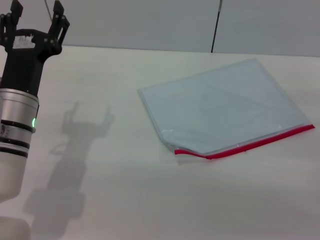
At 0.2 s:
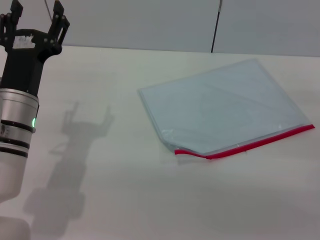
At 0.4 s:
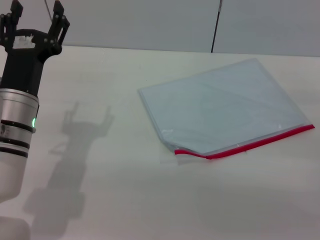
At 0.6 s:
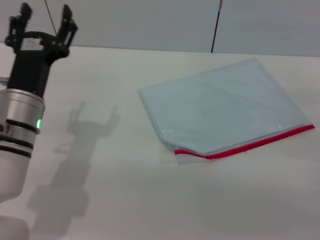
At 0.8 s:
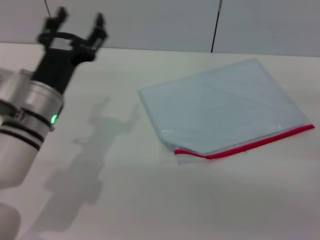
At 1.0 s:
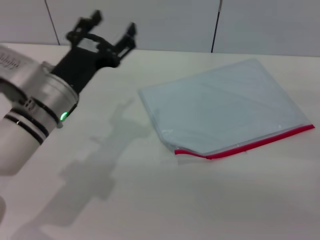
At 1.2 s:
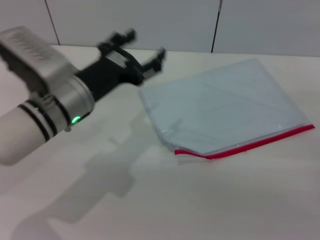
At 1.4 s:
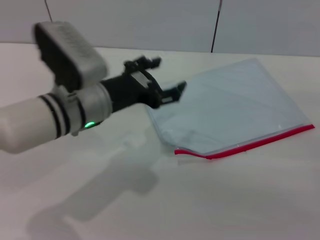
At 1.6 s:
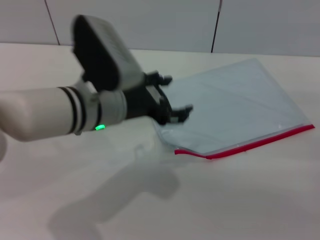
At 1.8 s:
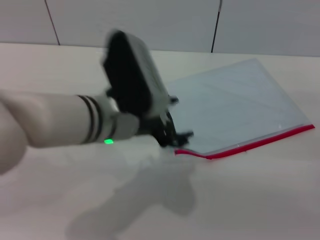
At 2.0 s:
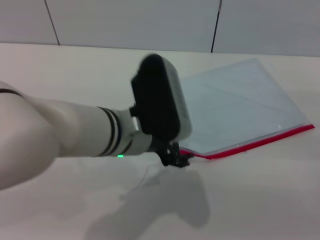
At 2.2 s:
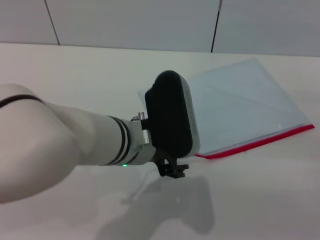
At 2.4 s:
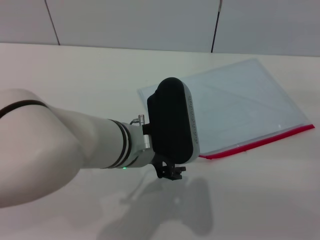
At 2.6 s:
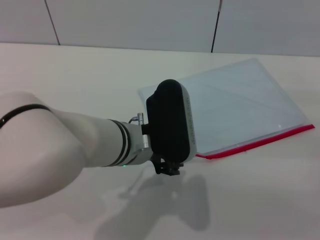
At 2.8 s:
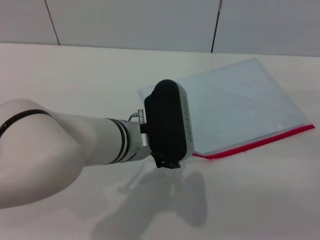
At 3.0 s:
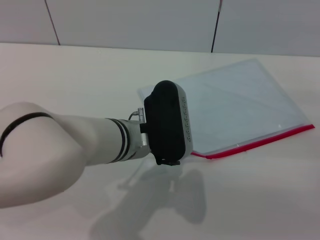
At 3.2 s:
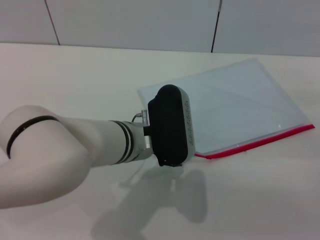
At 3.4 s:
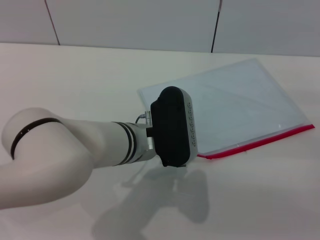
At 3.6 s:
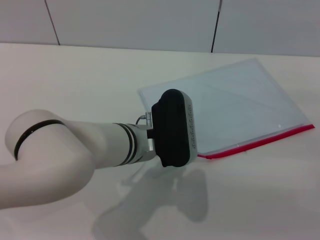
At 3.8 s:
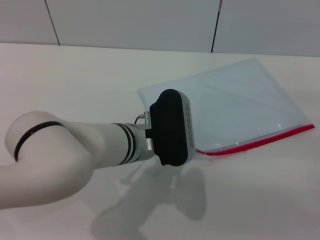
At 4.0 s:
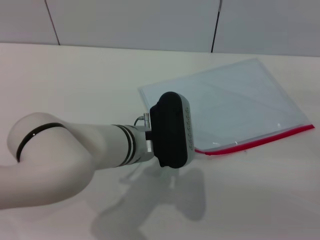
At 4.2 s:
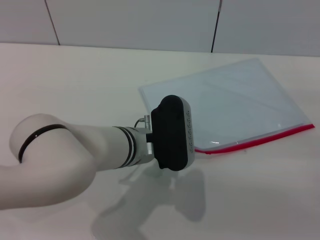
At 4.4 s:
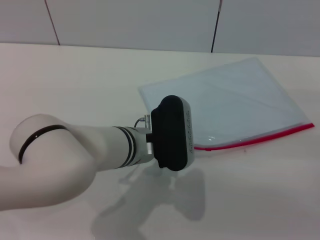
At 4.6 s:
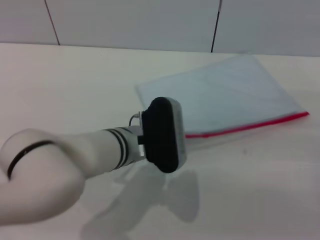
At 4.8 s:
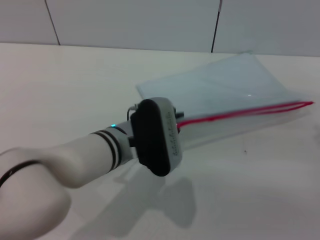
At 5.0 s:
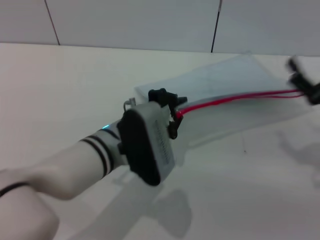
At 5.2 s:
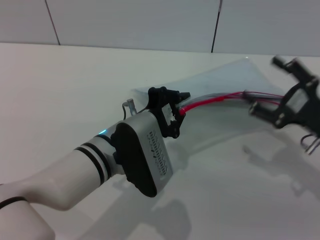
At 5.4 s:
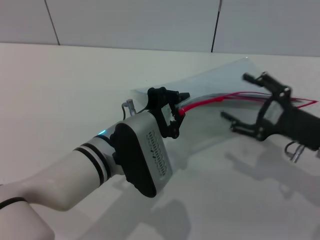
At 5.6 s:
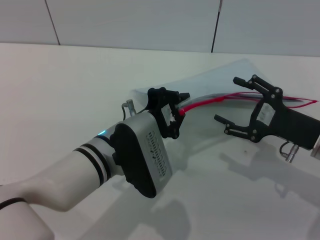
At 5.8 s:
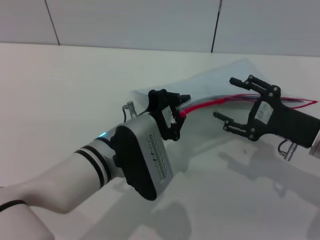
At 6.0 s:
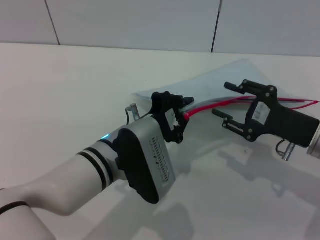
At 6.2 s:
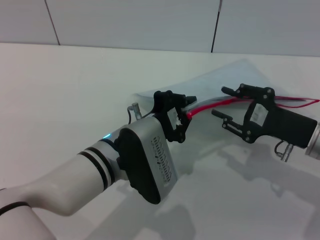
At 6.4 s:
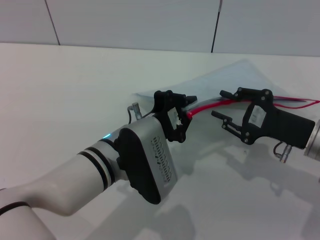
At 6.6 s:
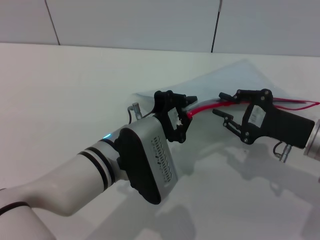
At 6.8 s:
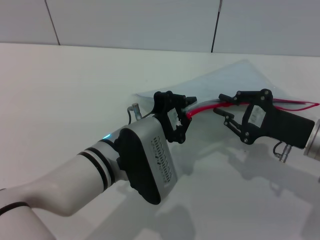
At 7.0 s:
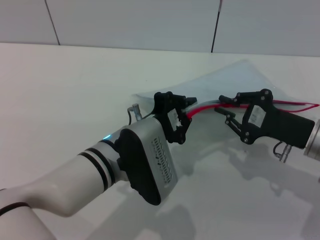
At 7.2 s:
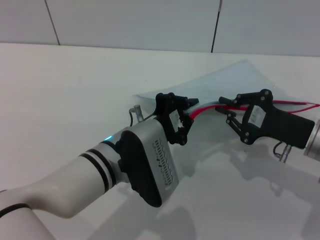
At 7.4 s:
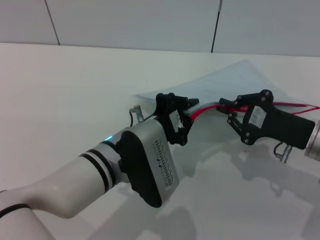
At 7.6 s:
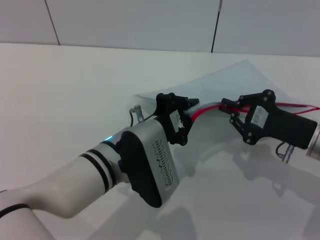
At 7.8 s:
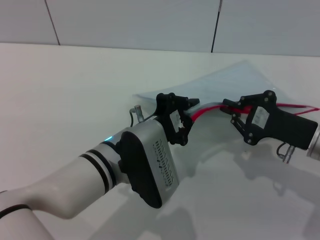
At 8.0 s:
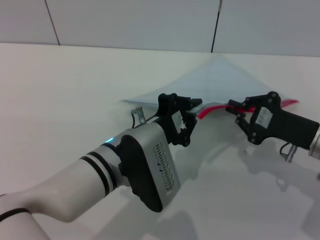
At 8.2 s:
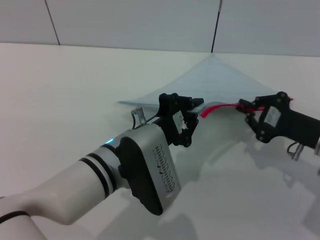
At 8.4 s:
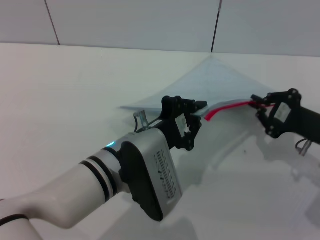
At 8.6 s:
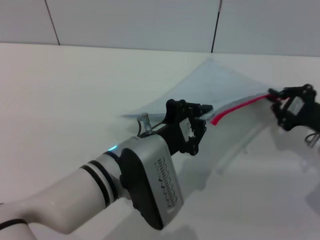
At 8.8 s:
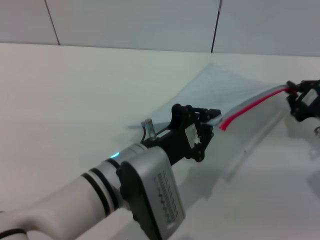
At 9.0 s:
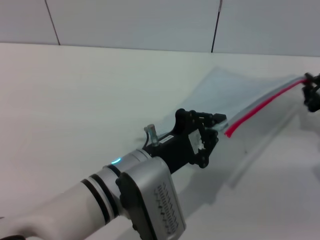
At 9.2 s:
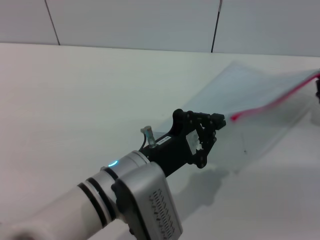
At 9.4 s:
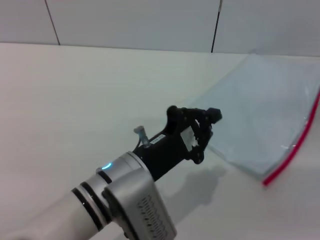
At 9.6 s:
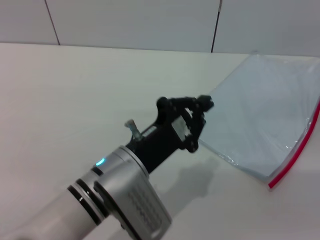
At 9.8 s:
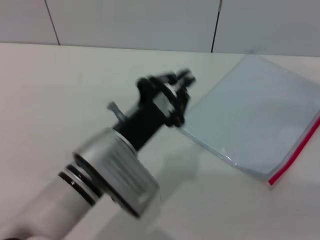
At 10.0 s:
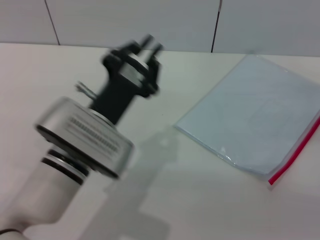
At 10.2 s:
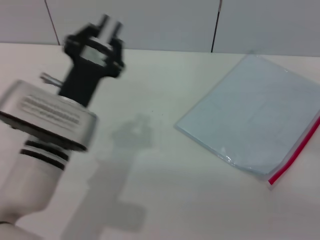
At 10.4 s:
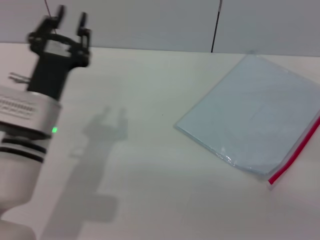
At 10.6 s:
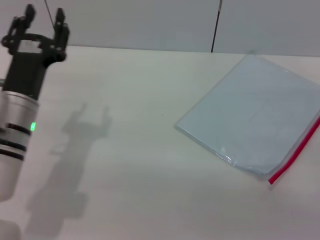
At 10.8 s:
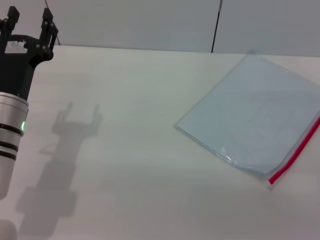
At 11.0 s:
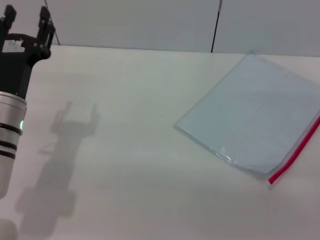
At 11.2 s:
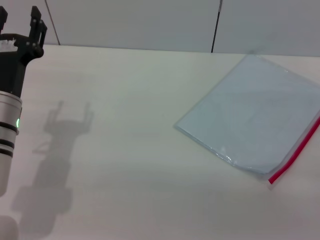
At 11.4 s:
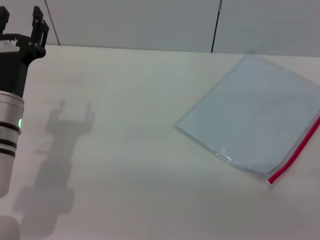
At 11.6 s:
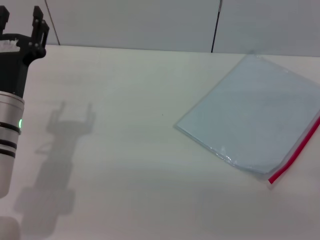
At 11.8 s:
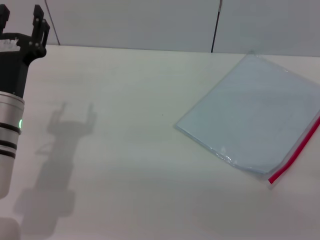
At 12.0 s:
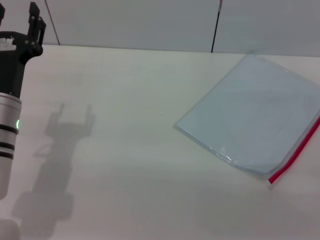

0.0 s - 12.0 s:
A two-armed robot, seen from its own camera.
Step, 0.0 s - 5.0 s: Pick up the transparent plastic bag with the left gripper.
Step, 5.2 s - 9.6 s: Pulling up the zipper on the transparent plastic bag with the right gripper to close it.
Step, 9.8 s - 10.8 s: Place the transparent plastic bag.
0.0 s - 1.6 s: The left gripper goes some 10 cm to the right and upward.
1.6 s - 3.0 s: The left gripper changes place by some 5 cm.
3.0 s - 4.4 s: The left gripper closes its fingers.
4.4 s - 6.0 s: The right gripper heads to the left, covering roughly 10 cm.
6.0 s - 7.6 s: The right gripper closes.
7.6 s - 9.0 s: The right gripper heads to the right, covering roughly 5 cm.
9.0 s - 10.4 s: The right gripper travels backward by about 10 cm, and opens its fingers; the left gripper goes some 10 cm to the left and forward.
10.4 s - 12.0 s: The left gripper goes approximately 5 cm to the left, and opens its fingers.

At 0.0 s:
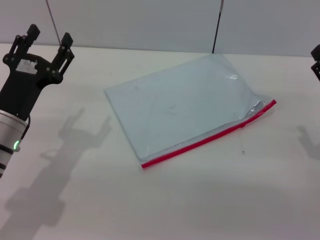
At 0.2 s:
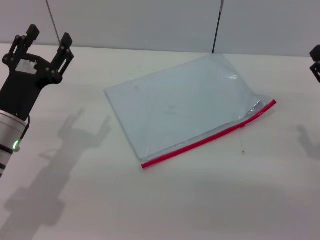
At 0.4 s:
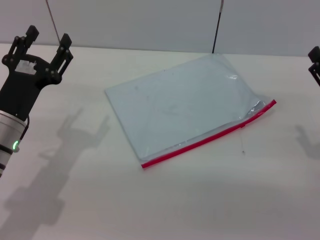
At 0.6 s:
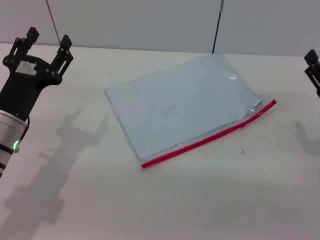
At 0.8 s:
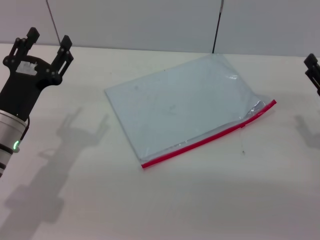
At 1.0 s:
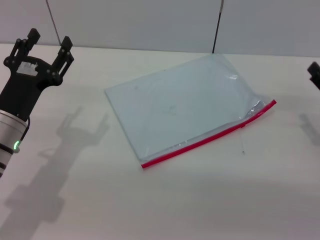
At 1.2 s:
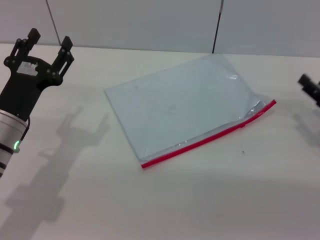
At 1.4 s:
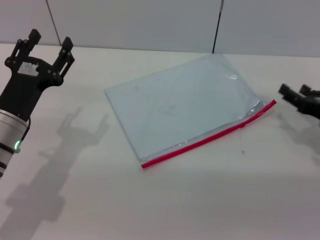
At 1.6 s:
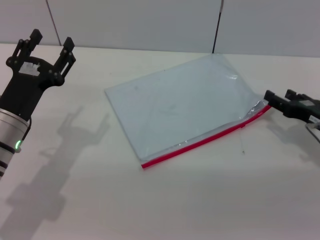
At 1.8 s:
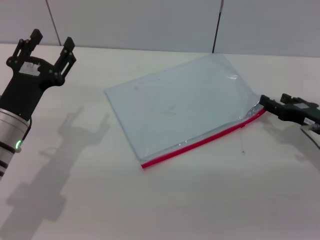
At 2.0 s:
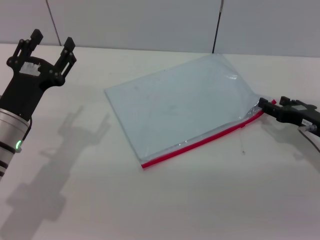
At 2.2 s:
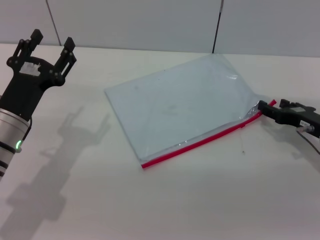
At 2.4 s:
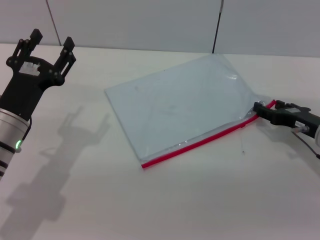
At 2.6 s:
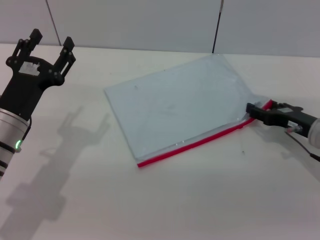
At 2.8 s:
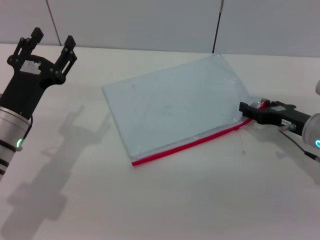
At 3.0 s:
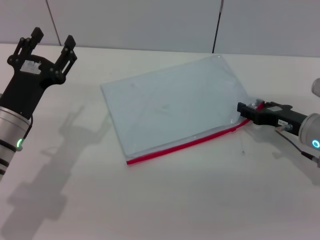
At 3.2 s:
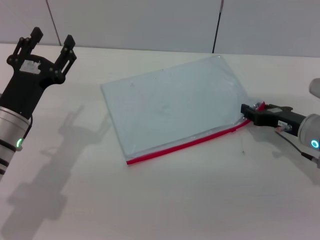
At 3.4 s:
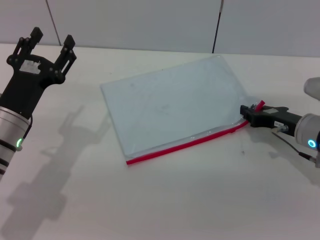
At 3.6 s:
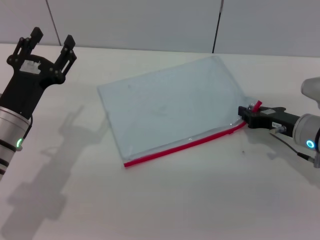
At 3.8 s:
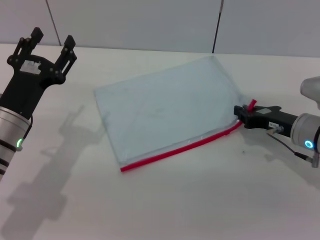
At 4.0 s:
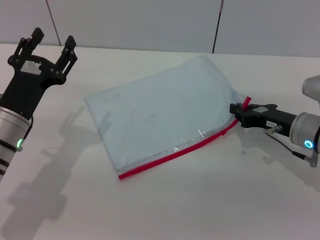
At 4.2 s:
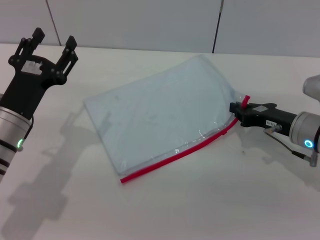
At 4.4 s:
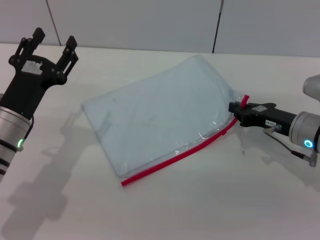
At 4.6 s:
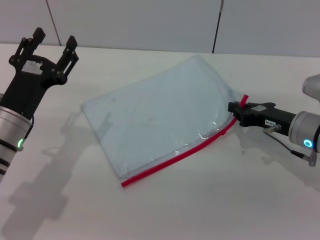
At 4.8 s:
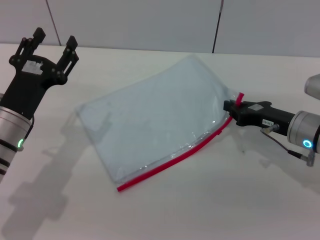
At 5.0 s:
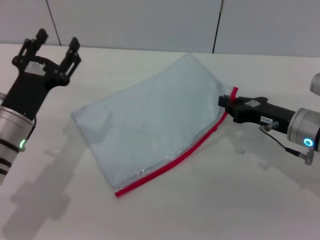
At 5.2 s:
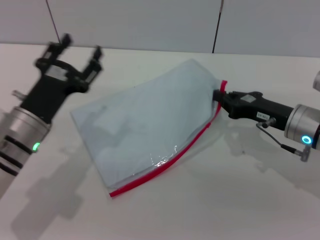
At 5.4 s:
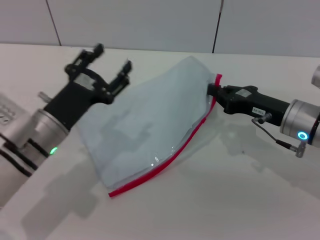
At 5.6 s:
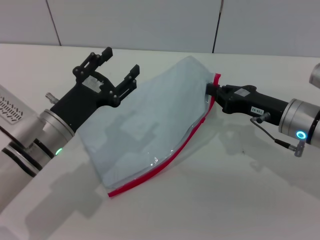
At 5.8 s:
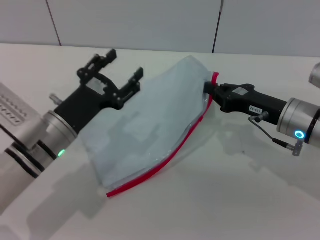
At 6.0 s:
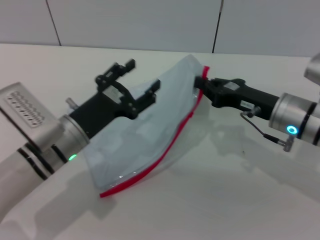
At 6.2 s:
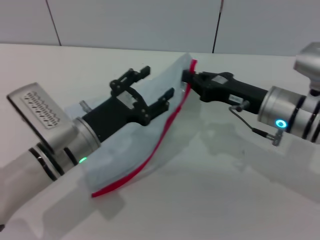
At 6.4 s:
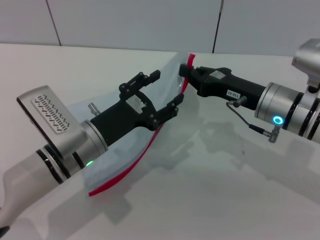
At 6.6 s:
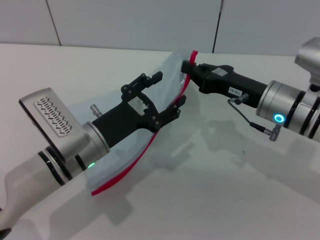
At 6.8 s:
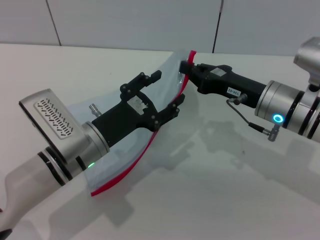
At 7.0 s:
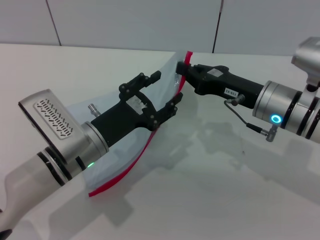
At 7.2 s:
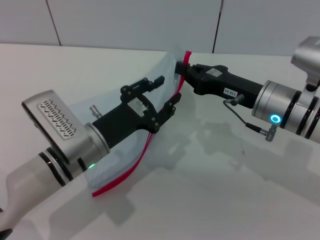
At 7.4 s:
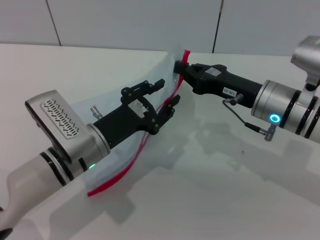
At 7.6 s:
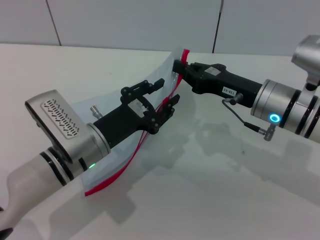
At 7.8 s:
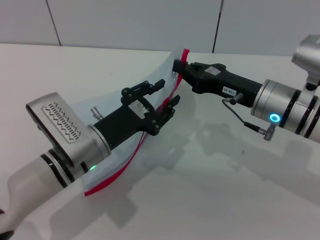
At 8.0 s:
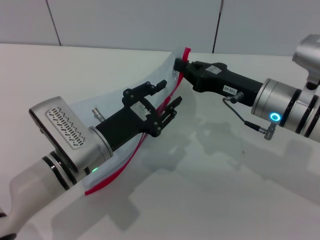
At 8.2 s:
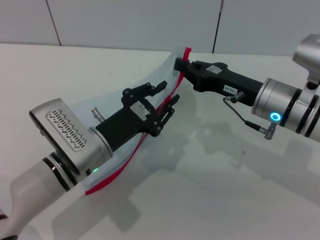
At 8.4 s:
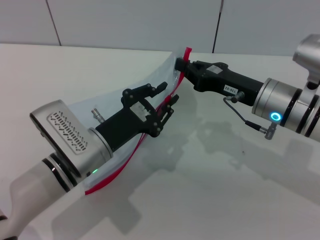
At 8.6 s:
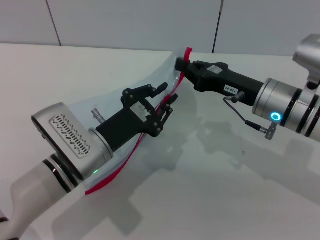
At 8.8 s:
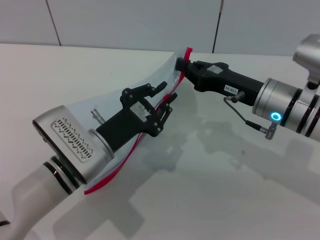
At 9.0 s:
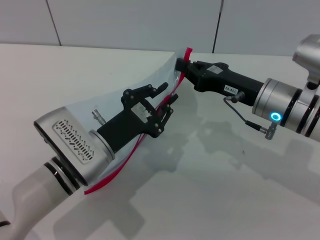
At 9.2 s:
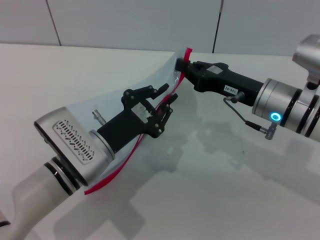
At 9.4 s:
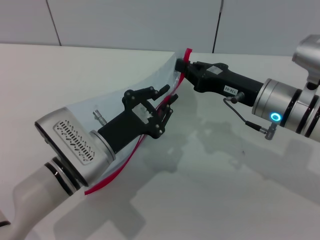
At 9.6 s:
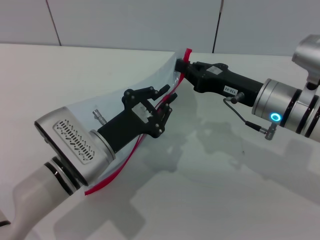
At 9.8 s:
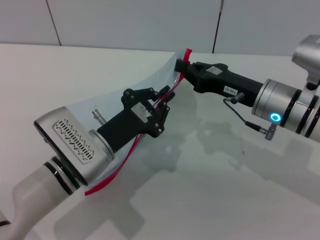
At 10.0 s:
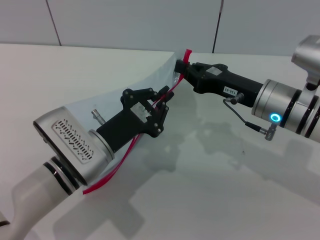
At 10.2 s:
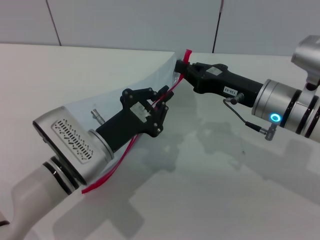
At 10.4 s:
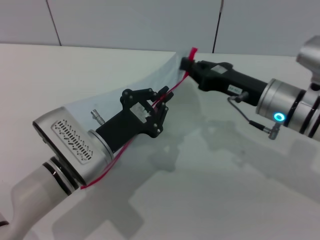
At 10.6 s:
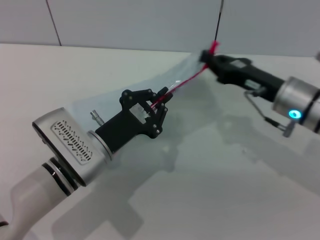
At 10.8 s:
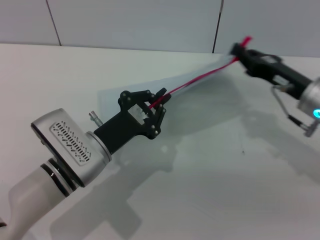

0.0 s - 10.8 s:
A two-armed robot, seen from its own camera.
Step, 0.0 s - 6.0 s: Pick up the transparent plastic bag with the right gripper.
0.0 s - 1.6 s: The right gripper heads forward, covering about 5 cm.
1.6 s - 3.0 s: The grippers stay close to where they were, moving slightly.
3.0 s - 4.6 s: The right gripper closes its fingers.
4.6 s - 6.2 s: The right gripper moves to the left, approximately 5 cm. Meanwhile the left gripper heads to the right, covering some 10 cm.
6.2 s - 7.8 s: The left gripper closes.
7.8 s - 9.2 s: The grippers make only small movements.
9.2 s - 10.8 s: The right gripper heads to the right, covering roughly 5 cm.
